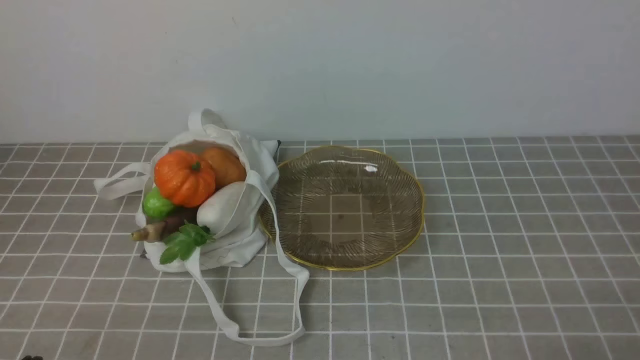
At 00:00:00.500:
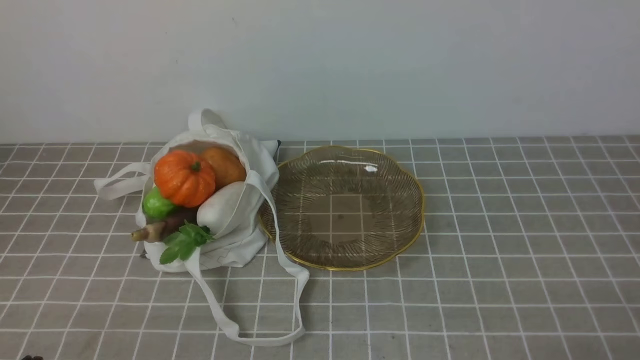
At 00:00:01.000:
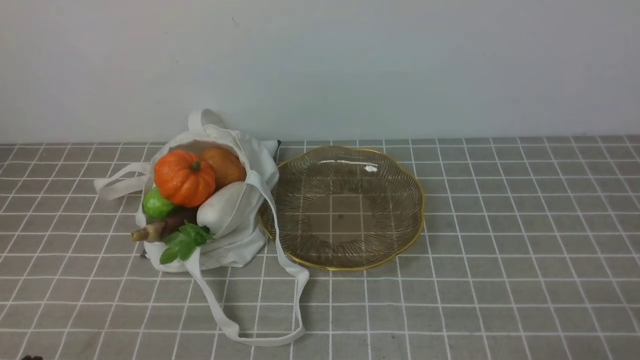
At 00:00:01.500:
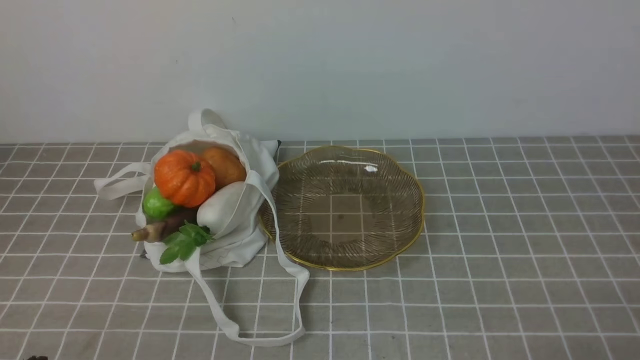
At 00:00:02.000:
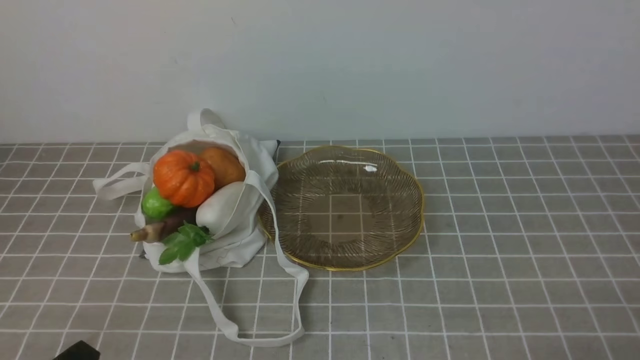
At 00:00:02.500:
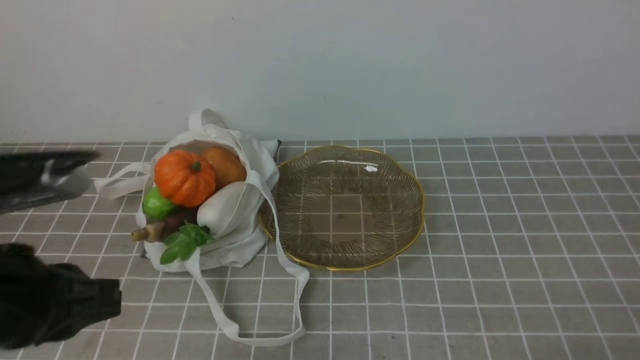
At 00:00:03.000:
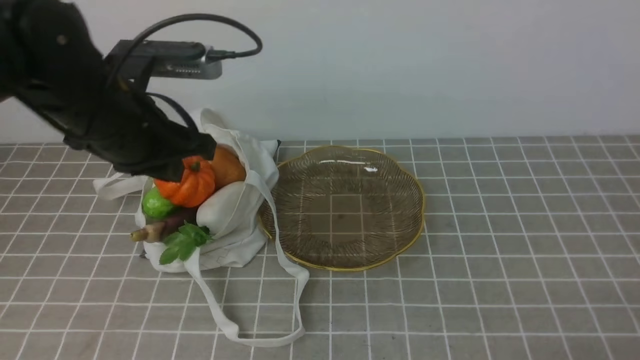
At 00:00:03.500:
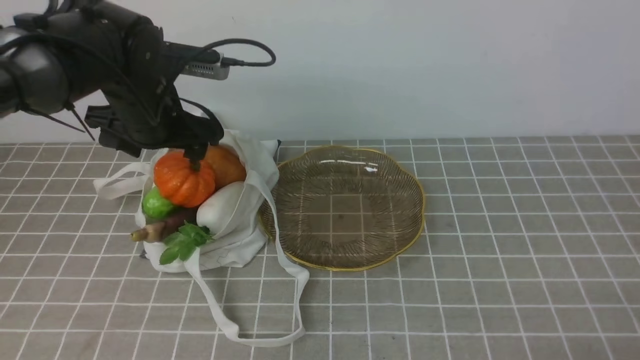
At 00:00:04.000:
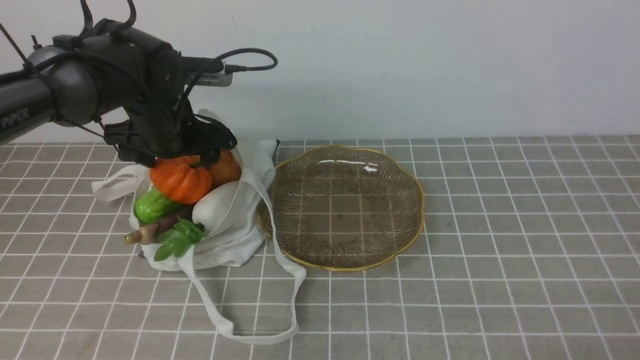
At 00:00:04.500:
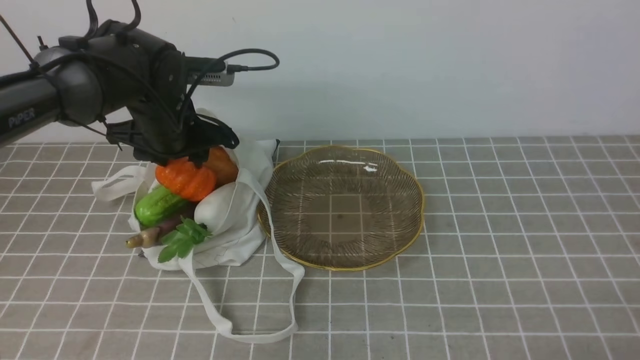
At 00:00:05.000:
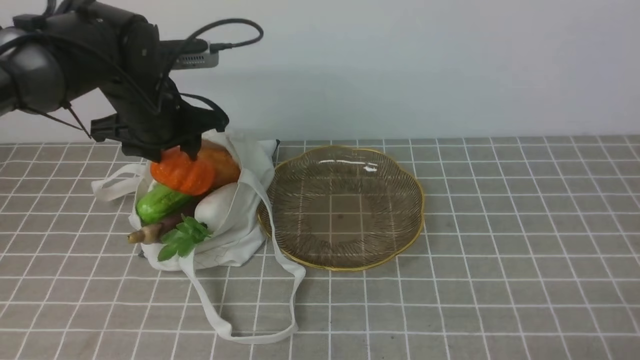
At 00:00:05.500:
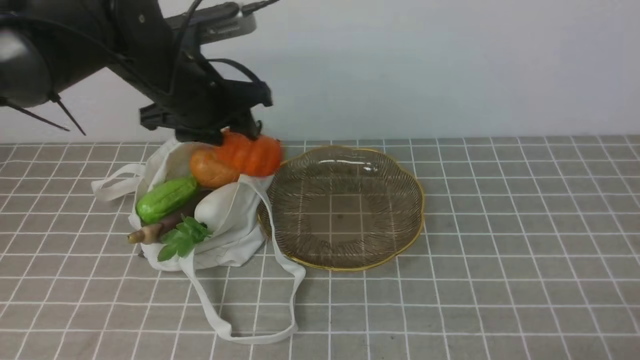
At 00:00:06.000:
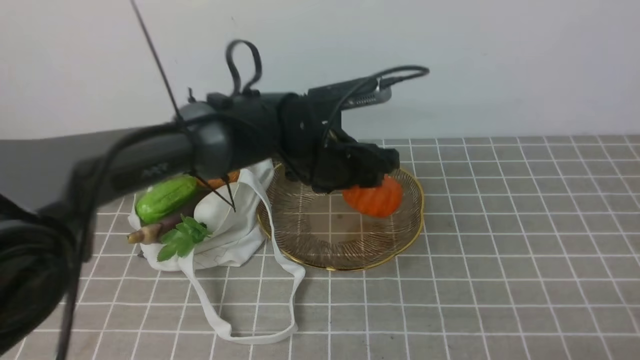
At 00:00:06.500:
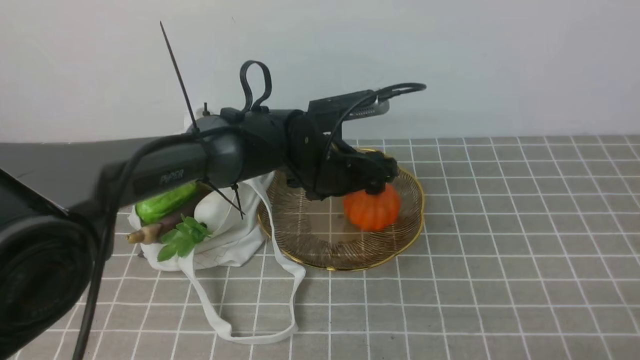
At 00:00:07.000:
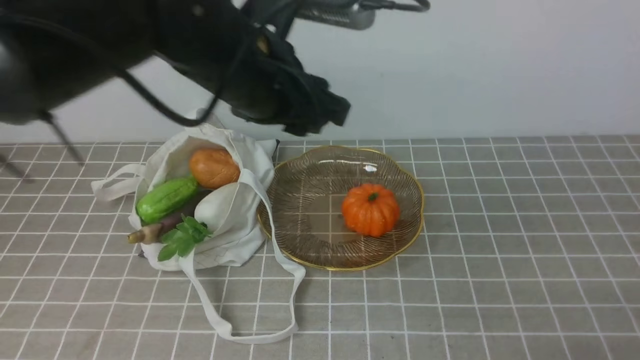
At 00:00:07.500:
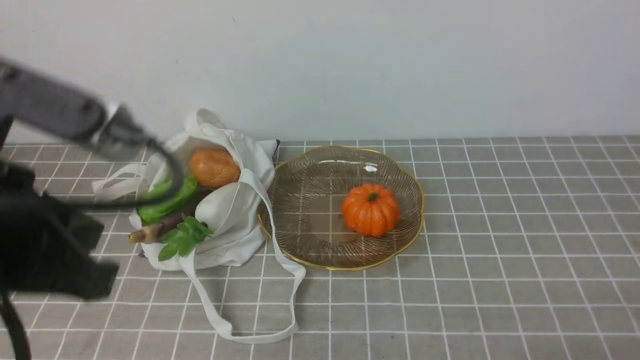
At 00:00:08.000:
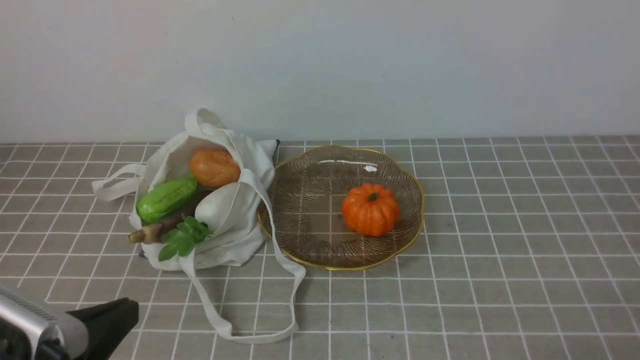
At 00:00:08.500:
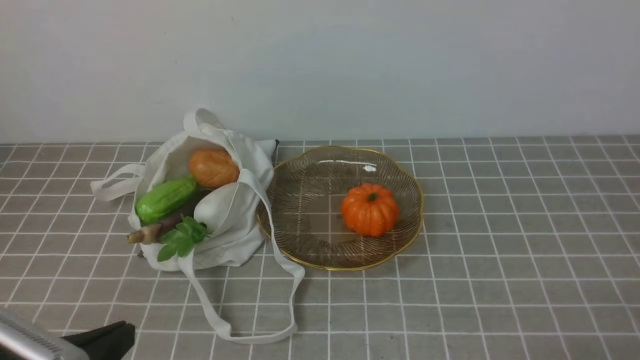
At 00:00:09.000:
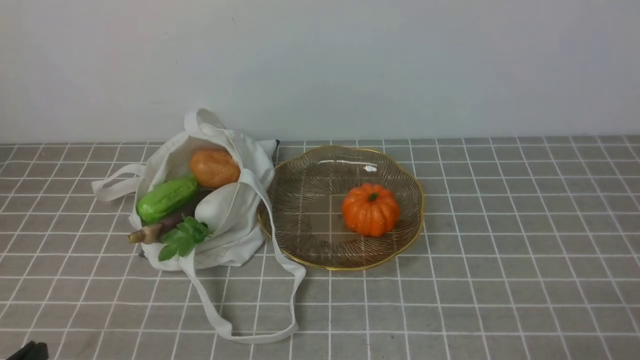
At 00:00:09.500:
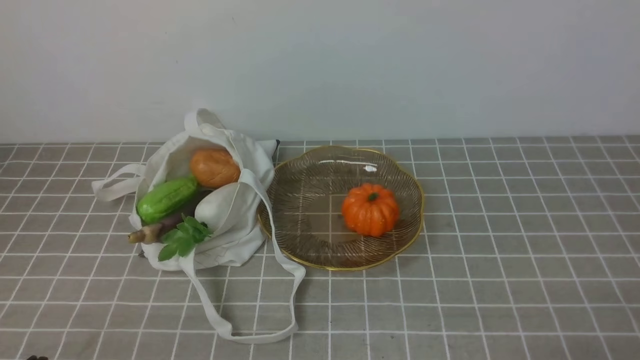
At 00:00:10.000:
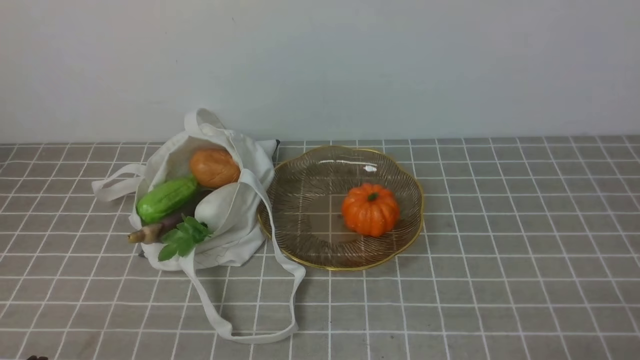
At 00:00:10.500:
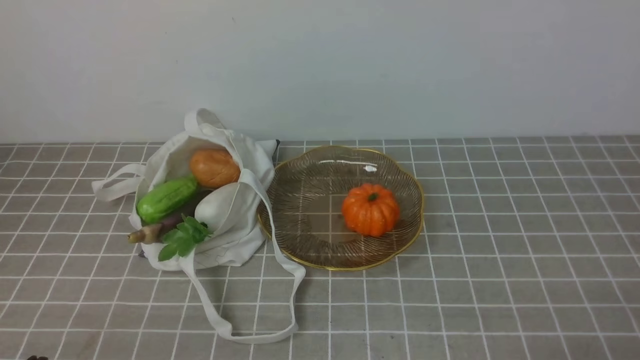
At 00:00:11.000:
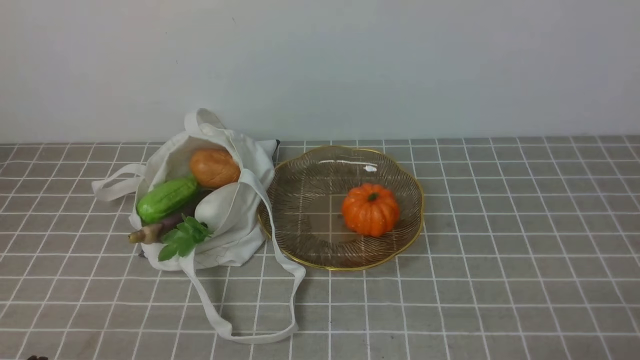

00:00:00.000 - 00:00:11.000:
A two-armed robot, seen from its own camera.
Task of the whole recording: take vegetables from bag on grey coffee tablecloth place on plate.
Step, 00:00:00.000 - 00:00:04.500: Grasp the pumpkin with left gripper.
Step, 00:00:05.000 - 00:00:06.500: Place the pumpkin on the plate with left gripper.
00:00:02.000 - 00:00:03.500: The left gripper goes roughly 35 cm forward, and opens its fingers.
00:00:05.500 - 00:00:07.500: The left gripper is displaced backward and upward by approximately 25 cm, and closes.
00:00:07.500 - 00:00:09.000: The left gripper moves downward and backward, approximately 20 cm.

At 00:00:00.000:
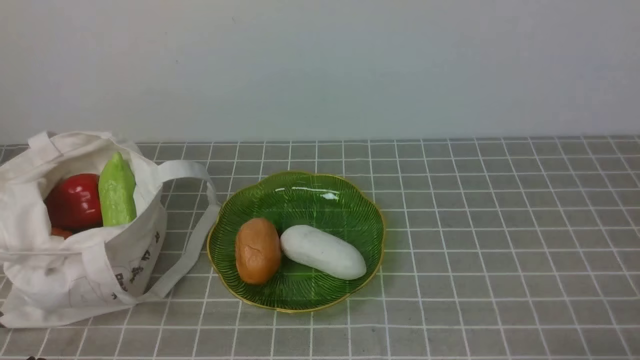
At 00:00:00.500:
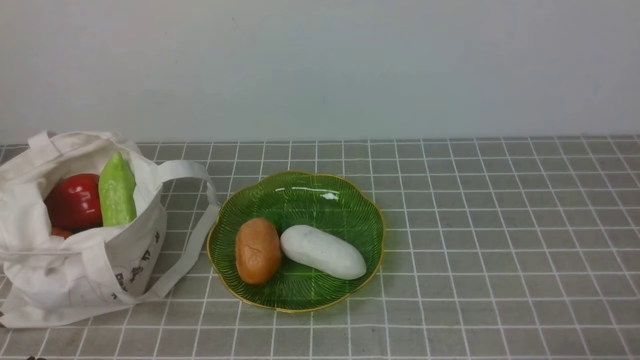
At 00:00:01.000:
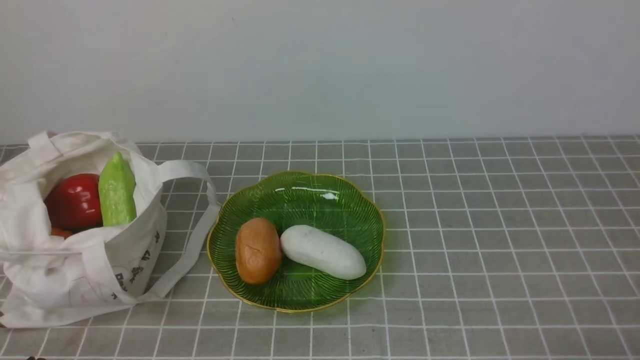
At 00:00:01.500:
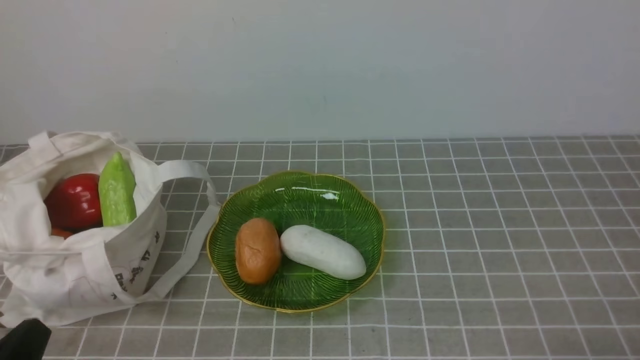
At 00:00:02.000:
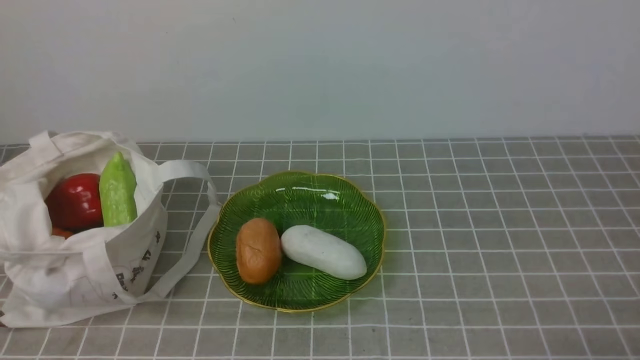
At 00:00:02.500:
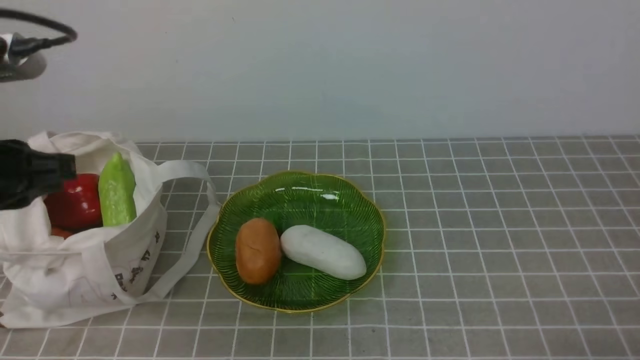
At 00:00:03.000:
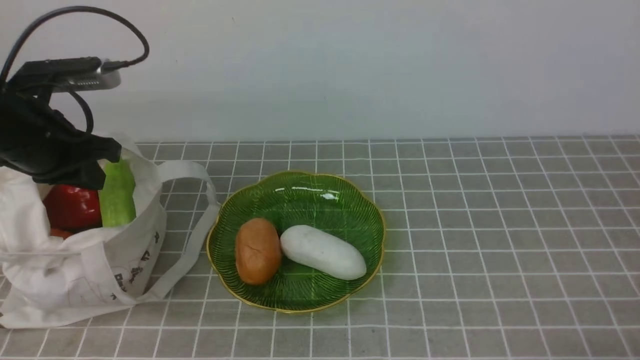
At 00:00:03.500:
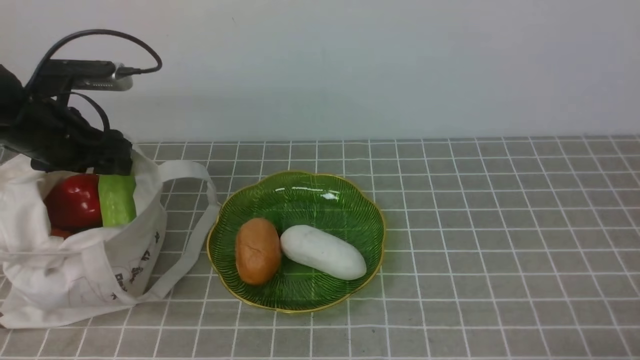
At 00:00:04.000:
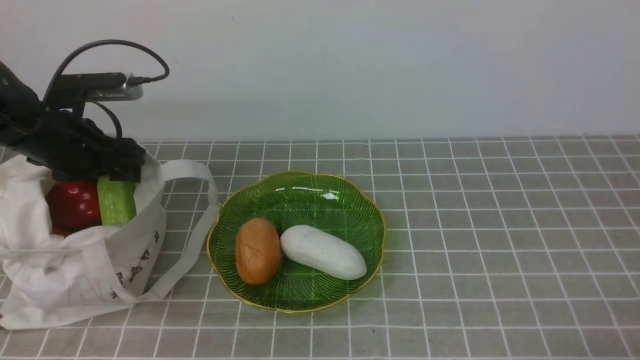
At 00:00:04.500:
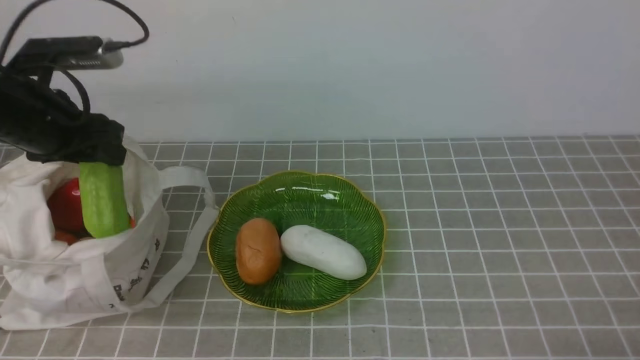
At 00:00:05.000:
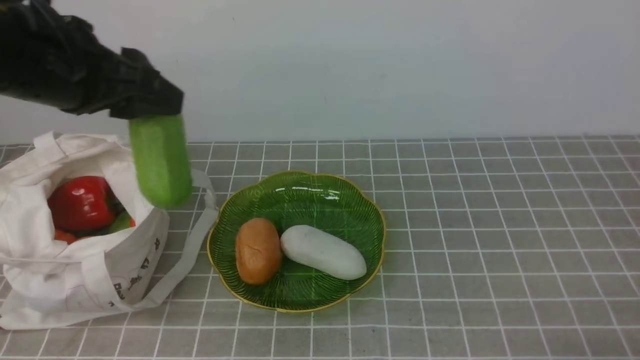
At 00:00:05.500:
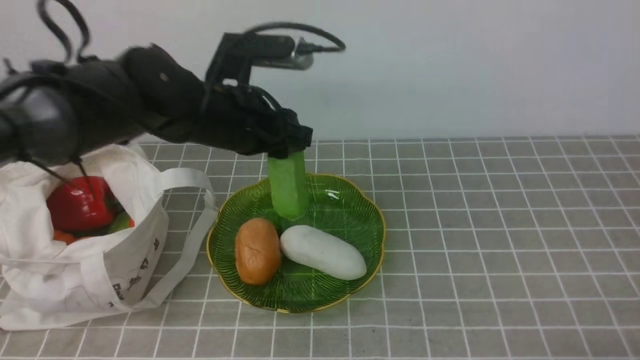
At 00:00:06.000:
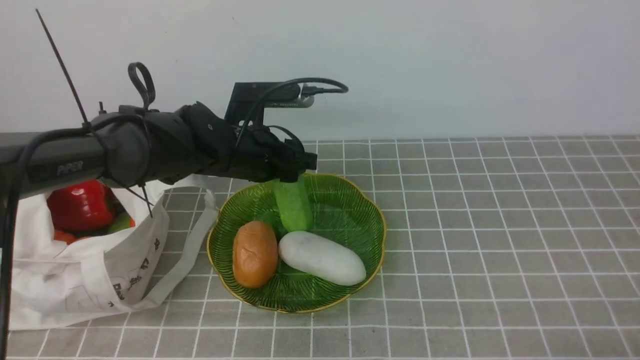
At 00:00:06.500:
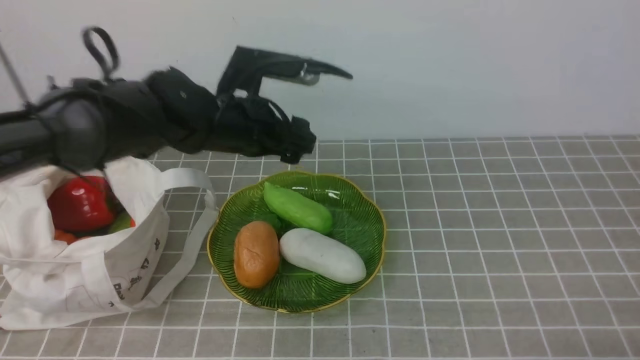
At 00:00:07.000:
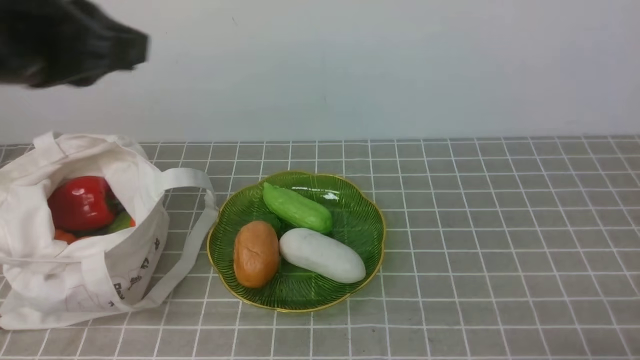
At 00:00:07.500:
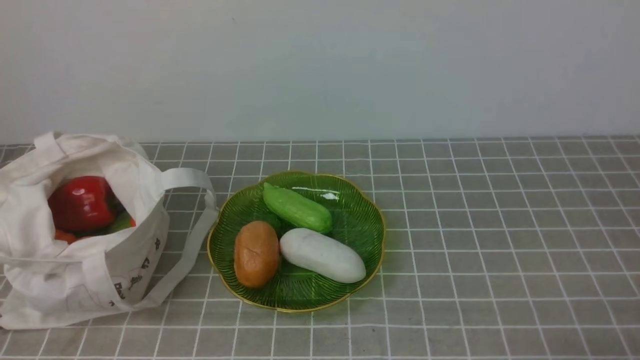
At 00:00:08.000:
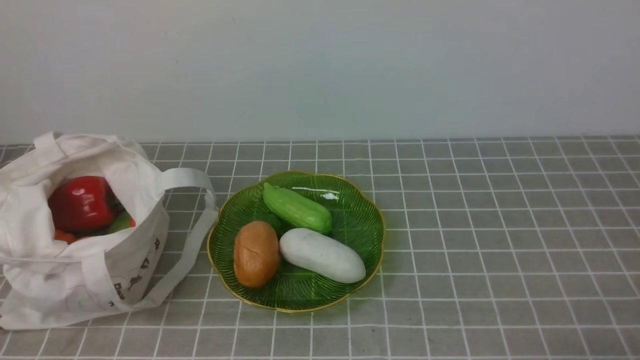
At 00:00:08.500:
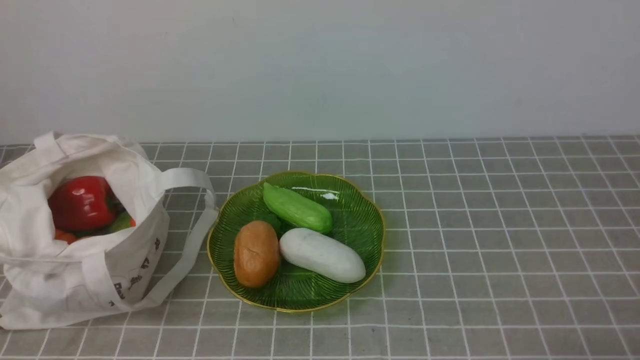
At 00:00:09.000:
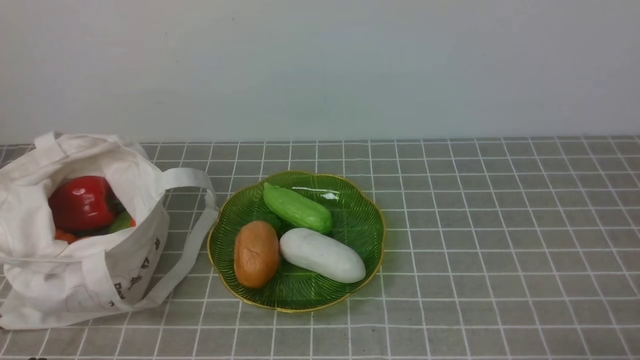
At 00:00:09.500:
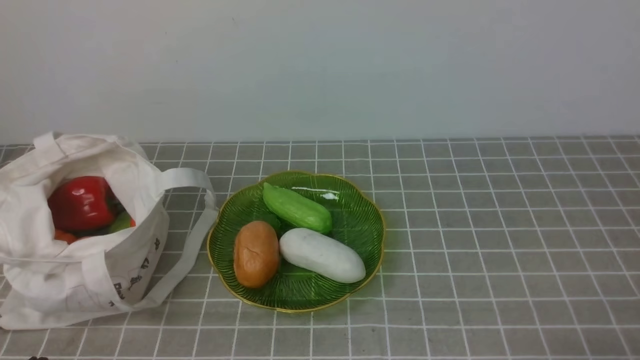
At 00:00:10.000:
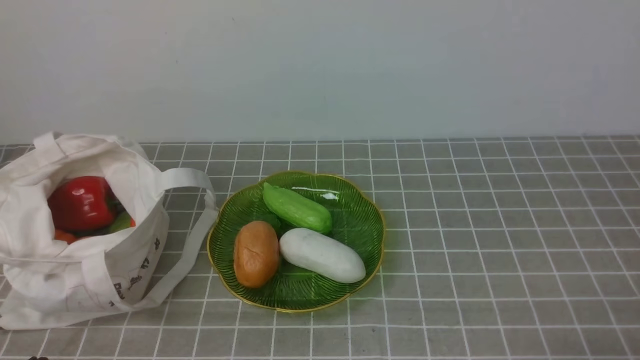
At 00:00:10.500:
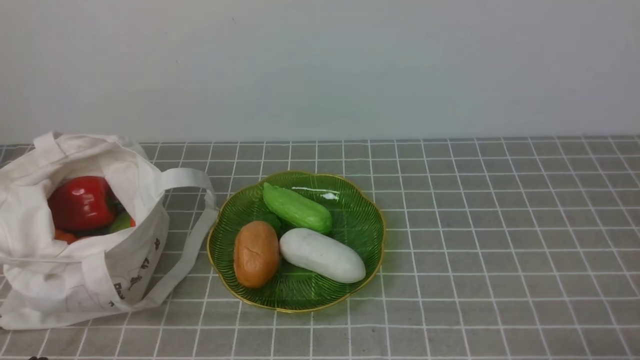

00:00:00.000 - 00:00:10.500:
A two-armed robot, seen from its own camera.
Task of the whole recording: take vegetables from bag on grey coffee tablecloth place on plate.
Step, 00:00:00.000 - 00:00:04.000: Grasp the bitter melon with left gripper.
Step, 00:00:04.500 - 00:00:06.500: Place the bitter melon on the plate with left gripper.
00:00:02.000 - 00:00:04.000: The left gripper shifts roughly 30 cm forward, and opens.
00:00:04.000 - 00:00:06.500: The left gripper goes some 15 cm to the right.
00:00:06.500 - 00:00:08.500: The left gripper moves backward, roughly 35 cm, and closes.
